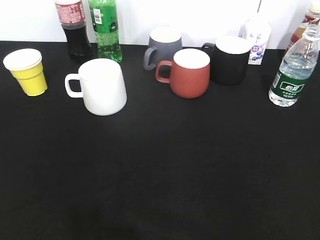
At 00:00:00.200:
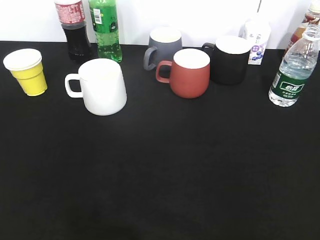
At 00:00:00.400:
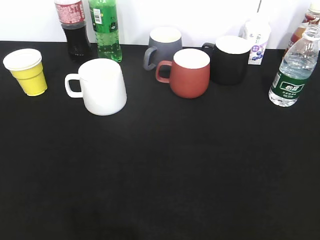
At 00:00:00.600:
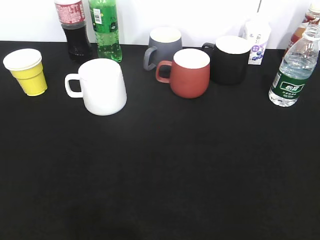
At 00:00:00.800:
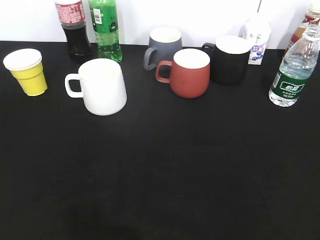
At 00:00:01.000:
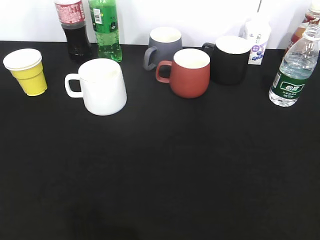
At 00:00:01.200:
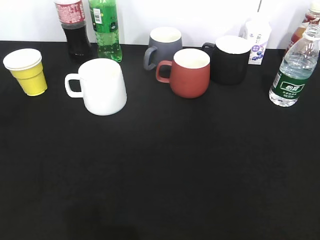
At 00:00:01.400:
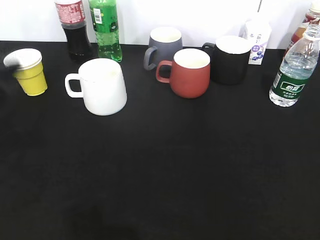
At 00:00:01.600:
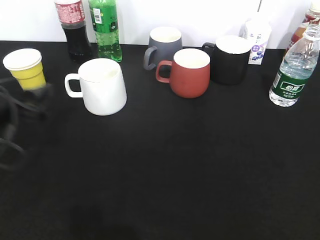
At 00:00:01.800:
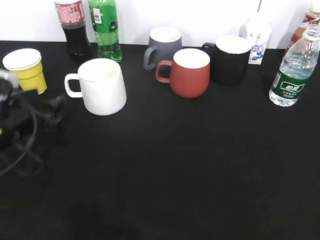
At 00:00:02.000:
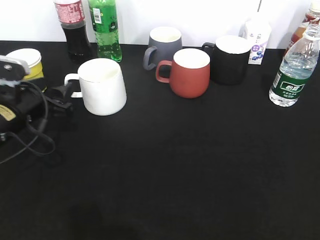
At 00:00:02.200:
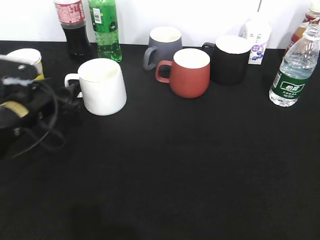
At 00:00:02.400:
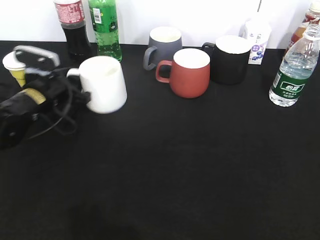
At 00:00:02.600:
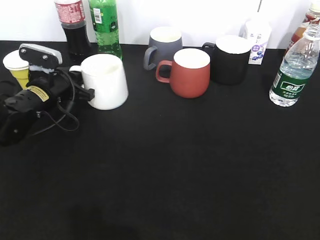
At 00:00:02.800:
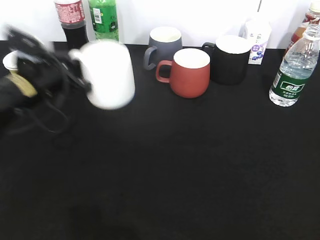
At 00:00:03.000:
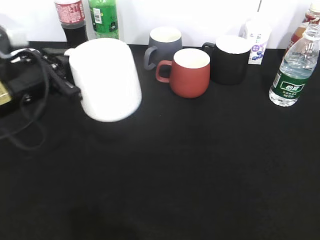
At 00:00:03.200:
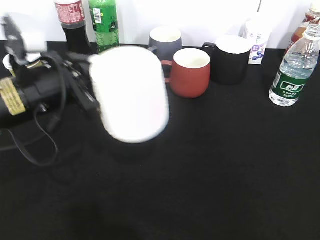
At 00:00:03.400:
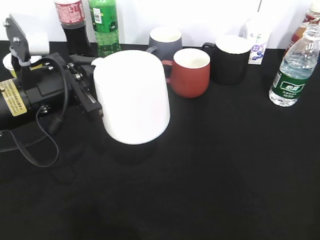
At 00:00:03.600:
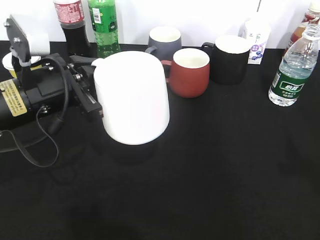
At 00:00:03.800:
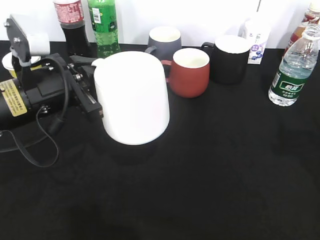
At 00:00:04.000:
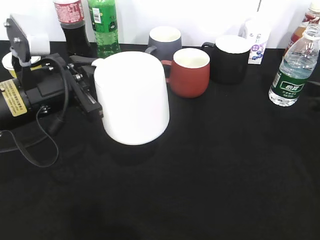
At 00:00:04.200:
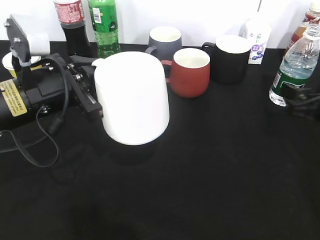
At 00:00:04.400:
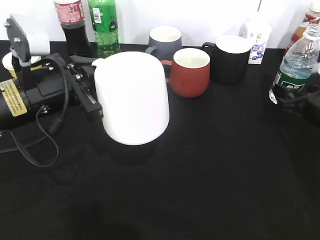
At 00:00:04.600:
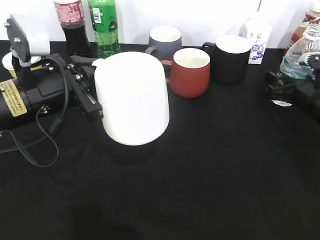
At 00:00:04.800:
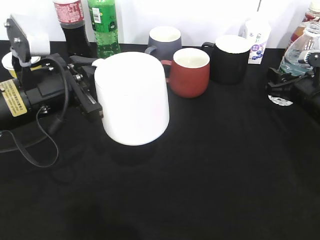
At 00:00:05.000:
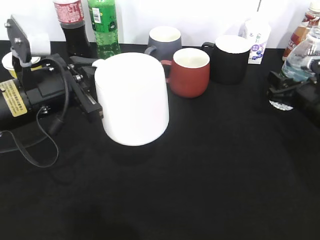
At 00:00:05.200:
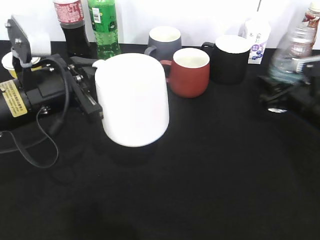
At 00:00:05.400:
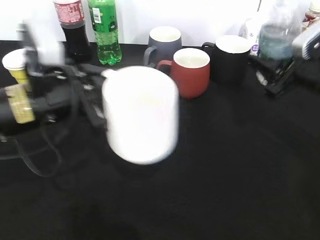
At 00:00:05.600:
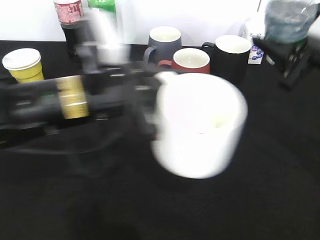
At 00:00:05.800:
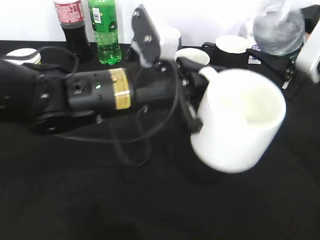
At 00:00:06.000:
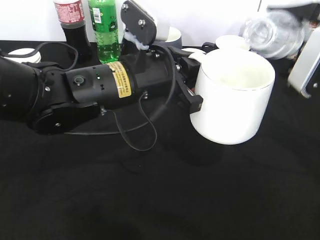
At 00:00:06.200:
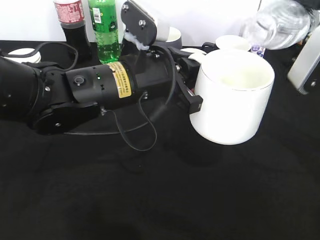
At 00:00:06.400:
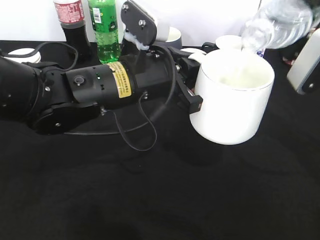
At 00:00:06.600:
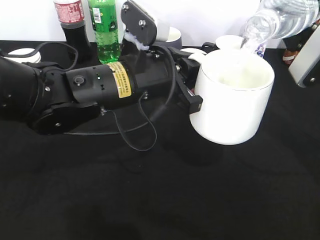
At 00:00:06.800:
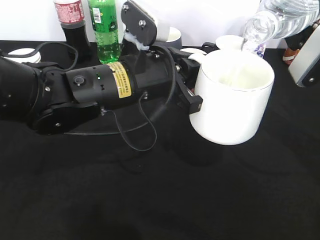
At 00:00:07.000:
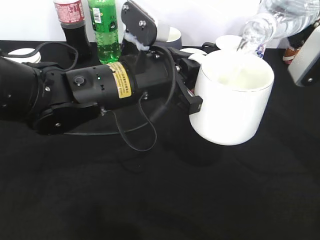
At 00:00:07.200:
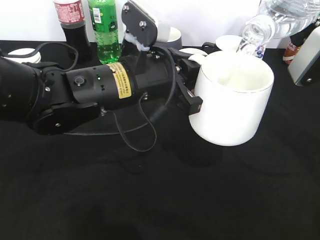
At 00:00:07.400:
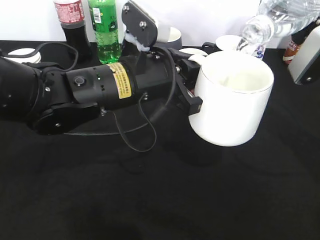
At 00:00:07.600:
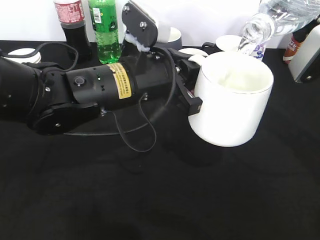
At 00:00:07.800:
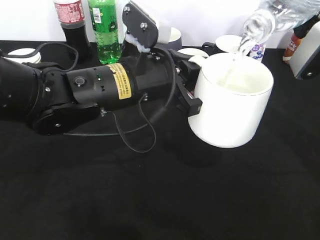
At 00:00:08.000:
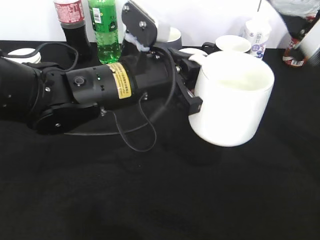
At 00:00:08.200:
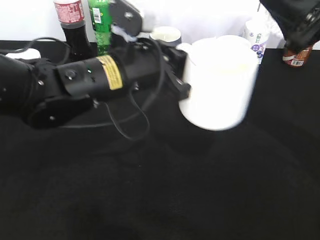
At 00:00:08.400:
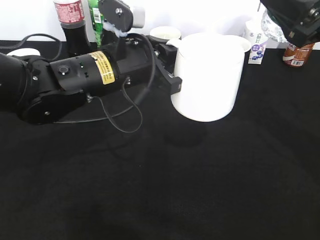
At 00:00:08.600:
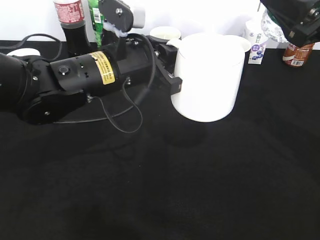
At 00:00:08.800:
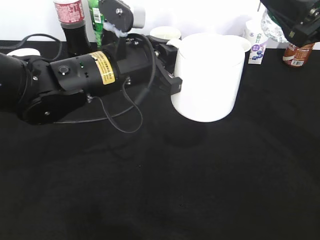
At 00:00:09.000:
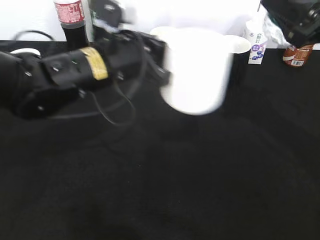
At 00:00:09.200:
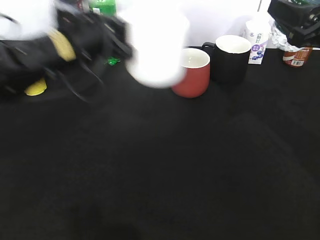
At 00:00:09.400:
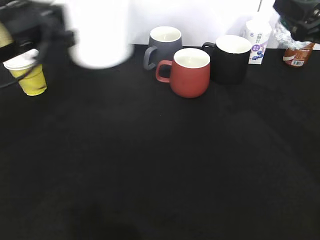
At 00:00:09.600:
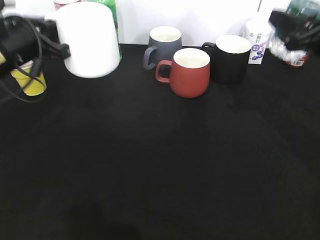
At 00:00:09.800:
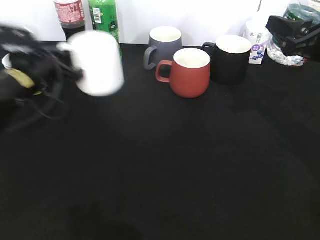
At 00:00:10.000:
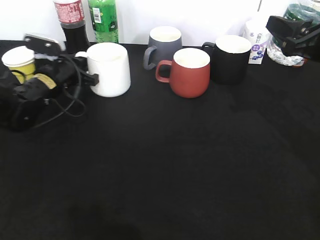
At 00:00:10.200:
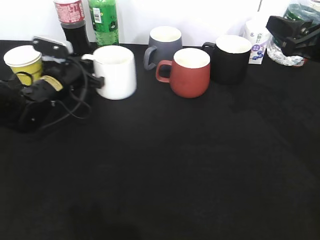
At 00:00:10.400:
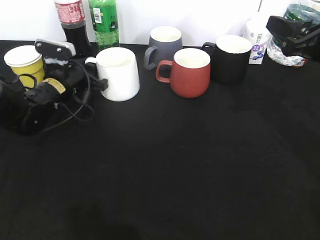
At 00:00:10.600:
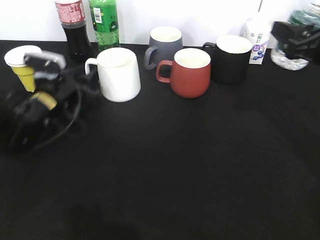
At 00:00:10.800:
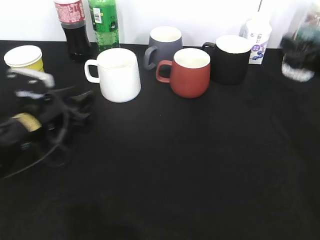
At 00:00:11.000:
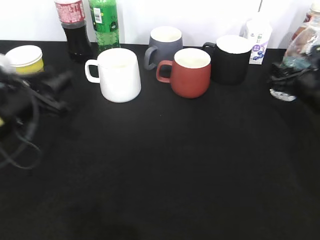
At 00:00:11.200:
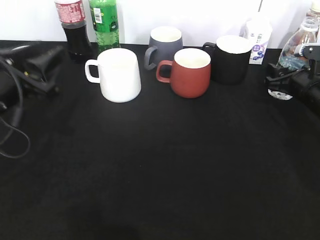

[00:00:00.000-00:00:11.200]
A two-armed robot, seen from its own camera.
Step, 00:00:00.600 to 00:00:02.400: Grasp the white cup with left gripper.
Step, 00:00:02.600 to 00:00:03.200: Lift the white cup with left gripper.
Step, 00:00:03.400 to 00:00:04.600: Grasp the bottle with water with right gripper.
Step, 00:00:04.800 to 00:00:08.800: Pour the water from bottle to cup with right gripper.
Step, 00:00:09.200 to 00:00:10.600: Place the white cup on the table with left gripper.
00:00:00.000 to 00:00:01.600: The left gripper travels forward and downward by approximately 25 cm, and opens.
00:00:01.600 to 00:00:03.200: The left gripper is displaced to the right by approximately 10 cm, travels forward and back again, roughly 15 cm each way, and closes up.
00:00:03.200 to 00:00:04.800: The right gripper moves forward and downward, some 40 cm, and closes its fingers.
00:00:04.800 to 00:00:06.400: The right gripper moves upward and backward, about 15 cm; the left gripper goes about 15 cm to the right.
00:00:06.400 to 00:00:08.000: The grippers move only a little.
00:00:08.000 to 00:00:09.600: The left gripper goes about 20 cm to the left.
00:00:09.600 to 00:00:11.200: The left gripper moves backward, some 5 cm, and opens its fingers; the right gripper travels downward and forward by roughly 15 cm.

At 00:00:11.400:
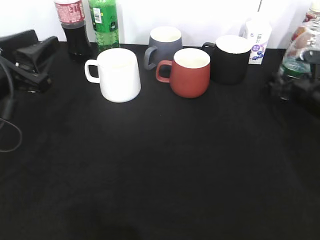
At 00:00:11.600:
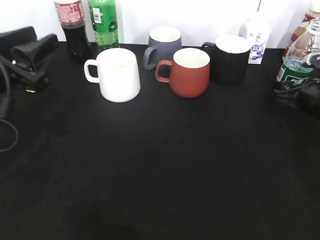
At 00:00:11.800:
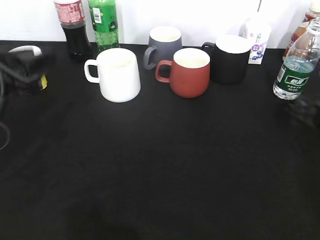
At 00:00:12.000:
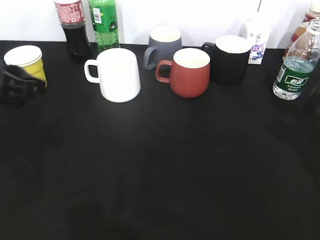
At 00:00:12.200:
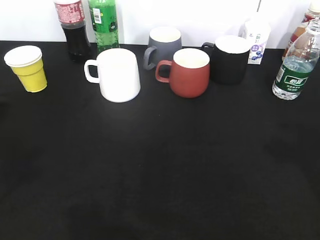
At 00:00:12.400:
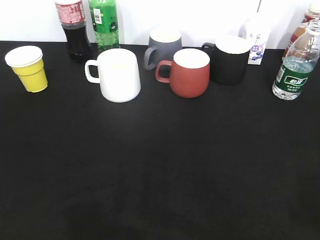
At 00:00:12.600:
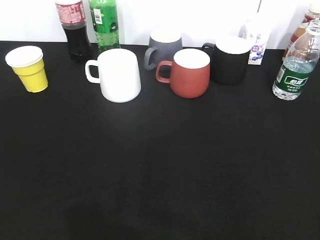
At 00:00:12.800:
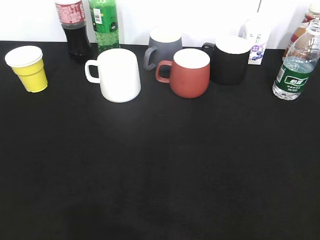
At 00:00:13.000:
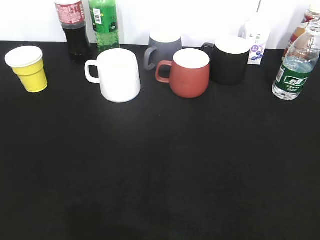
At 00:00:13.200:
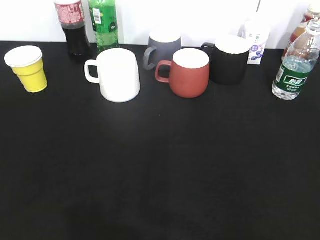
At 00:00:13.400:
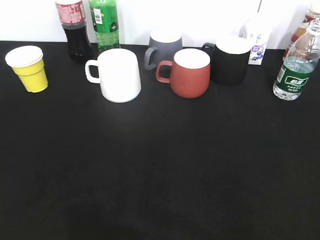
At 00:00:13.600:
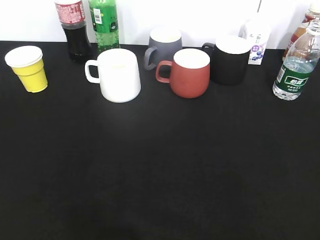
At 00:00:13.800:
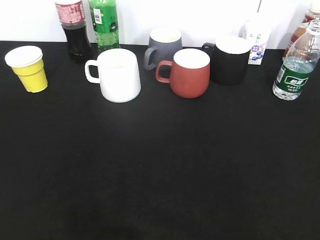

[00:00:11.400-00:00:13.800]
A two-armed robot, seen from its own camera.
00:00:11.400 to 00:00:12.600: The right gripper is displaced backward and upward by approximately 40 cm, while the left gripper is displaced backward by approximately 25 cm.
